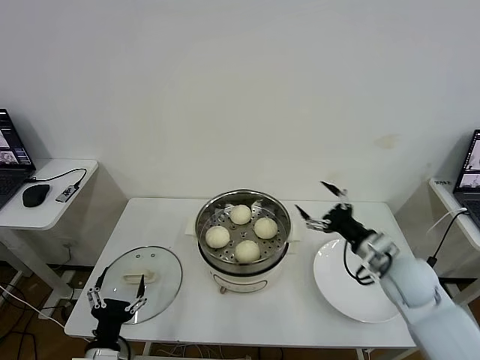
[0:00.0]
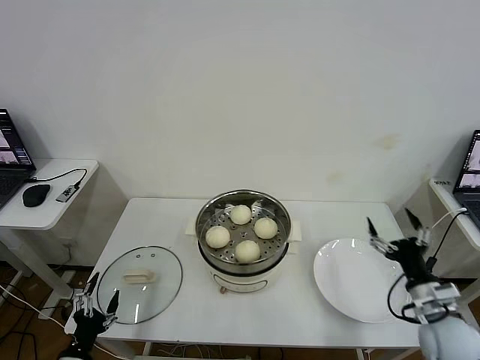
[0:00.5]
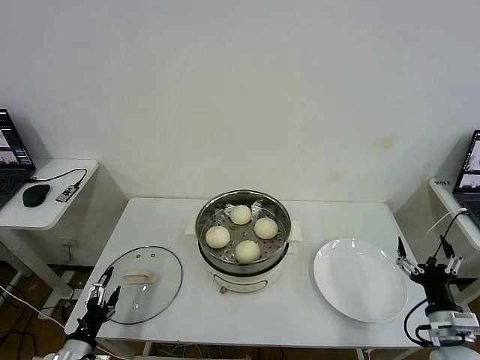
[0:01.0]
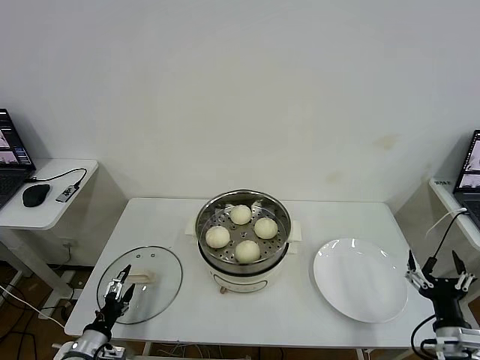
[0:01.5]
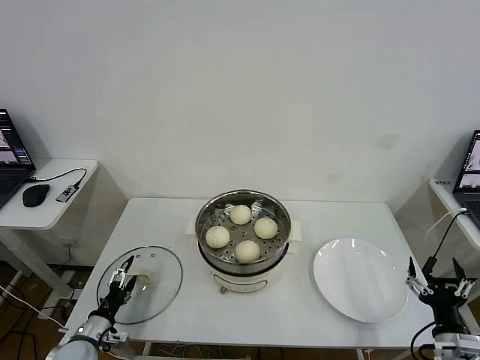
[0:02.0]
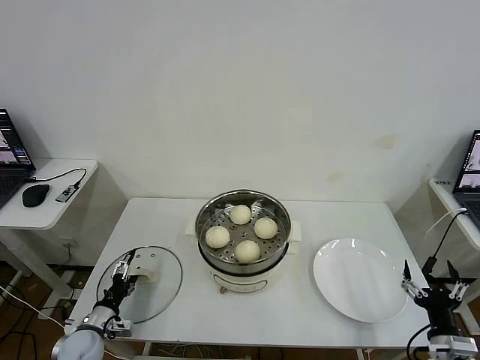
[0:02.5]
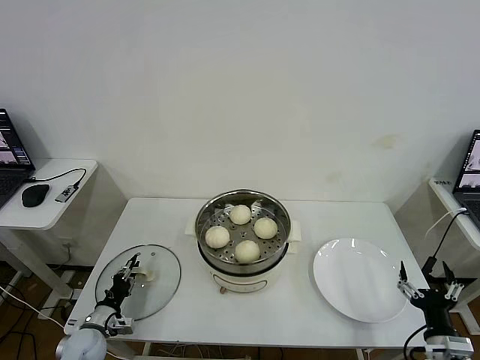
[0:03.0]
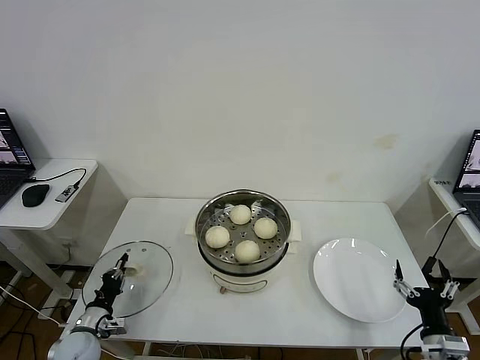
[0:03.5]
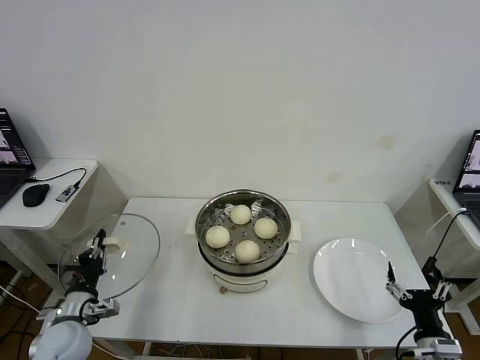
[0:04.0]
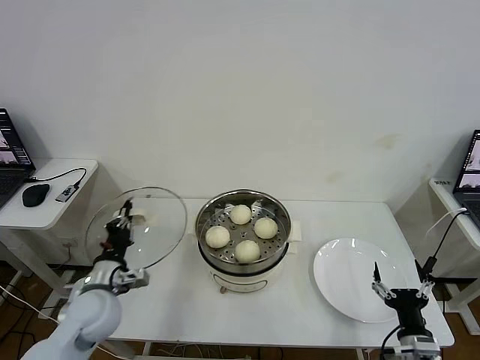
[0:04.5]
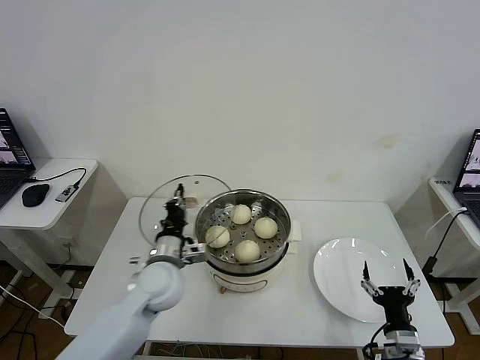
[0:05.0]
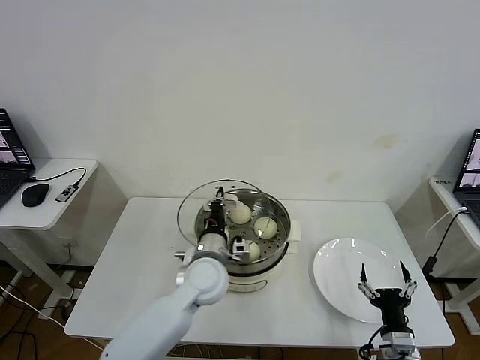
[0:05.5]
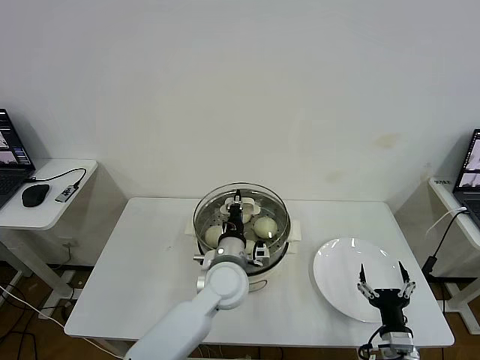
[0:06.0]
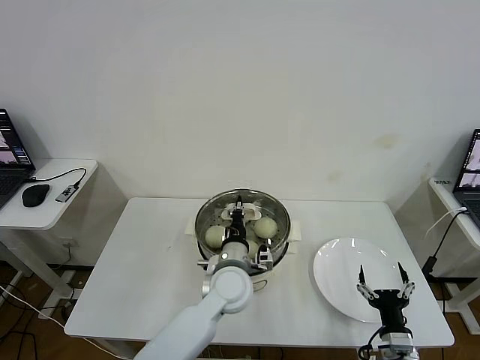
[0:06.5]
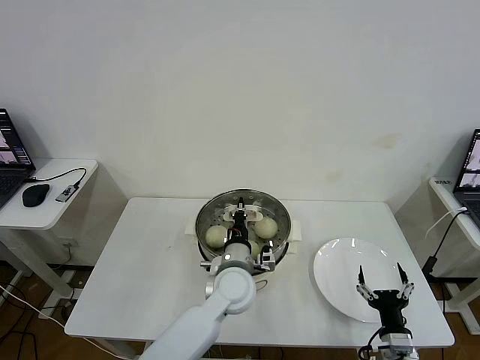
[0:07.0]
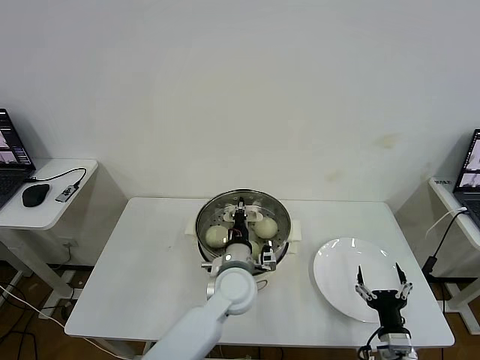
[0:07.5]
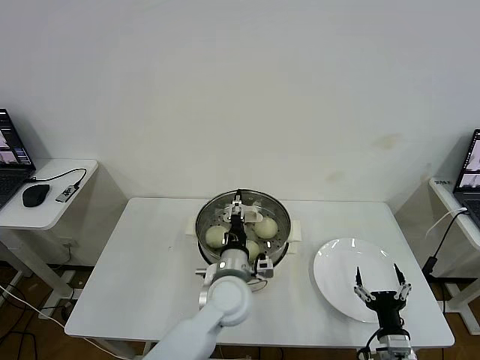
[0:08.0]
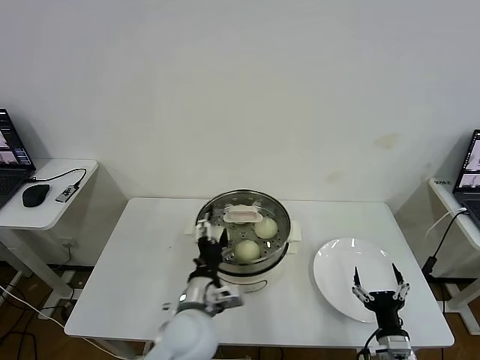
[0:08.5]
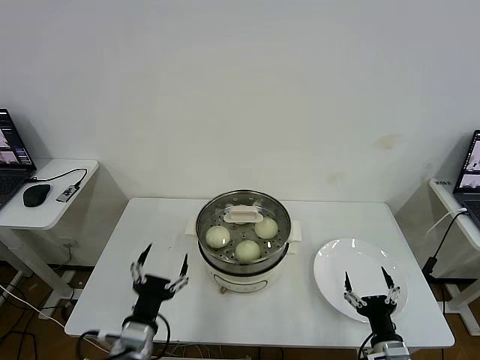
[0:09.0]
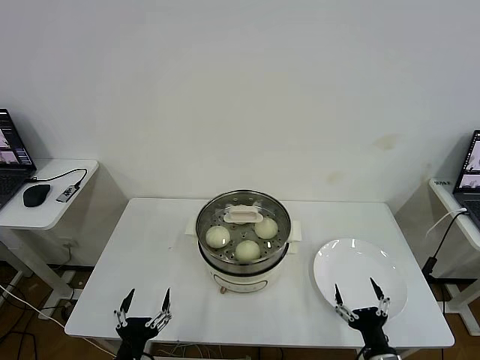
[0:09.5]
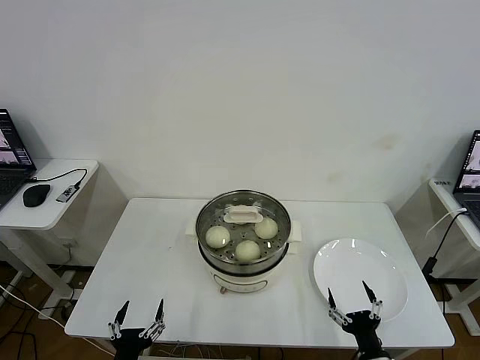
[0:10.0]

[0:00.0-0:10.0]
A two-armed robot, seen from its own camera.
Task of the whole recording: take steamed baozi put them in steamer then cover it.
Step, 0:00.0 to 0:03.0: Grasp the pot lid with left gripper.
Step, 0:03.5 to 0:08.0: Place the pot lid on the steamer with left gripper.
0:00.0 to 0:02.0: The right gripper goes approximately 20 cm backward, downward and to the right. Meanwhile the left gripper moves to the left, forward and downward, about 15 cm.
0:02.0 to 0:04.0: The left gripper travels upward by some 10 cm, and closes its fingers.
0:04.0 to 0:06.0: The left gripper goes some 35 cm to the right; the right gripper is displaced to the left by roughly 5 cm.
0:06.0 to 0:08.0: The left gripper opens its fingers.
0:08.0 to 0:10.0: The right gripper changes place by about 5 cm; the left gripper travels backward, to the left and downward by about 35 cm.
